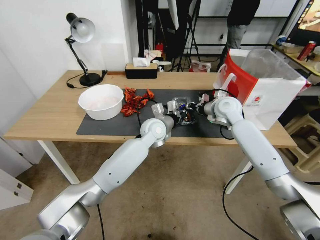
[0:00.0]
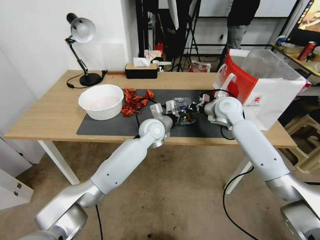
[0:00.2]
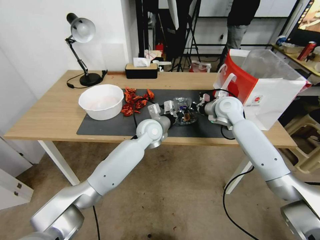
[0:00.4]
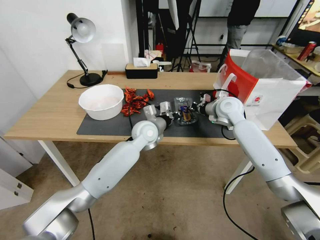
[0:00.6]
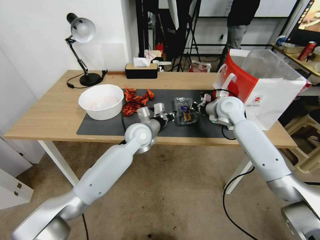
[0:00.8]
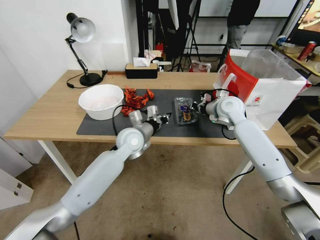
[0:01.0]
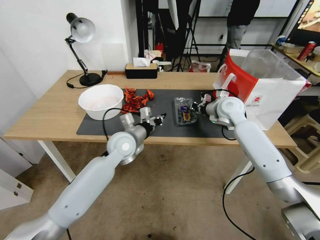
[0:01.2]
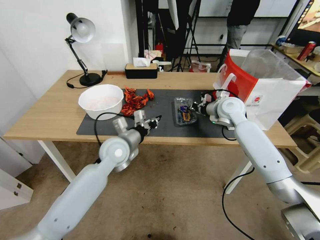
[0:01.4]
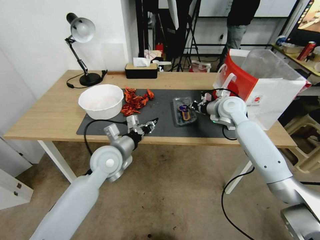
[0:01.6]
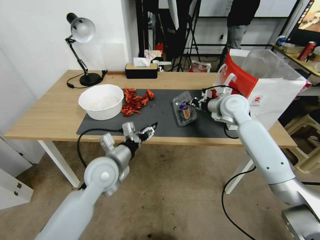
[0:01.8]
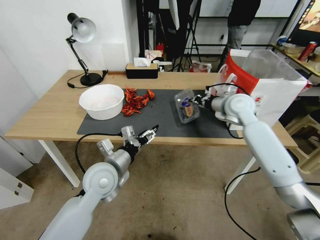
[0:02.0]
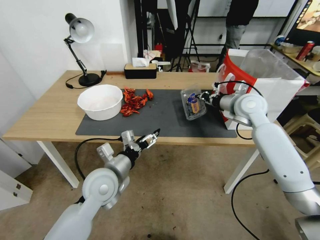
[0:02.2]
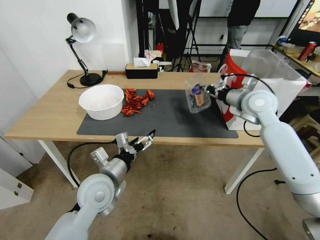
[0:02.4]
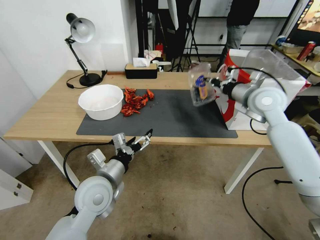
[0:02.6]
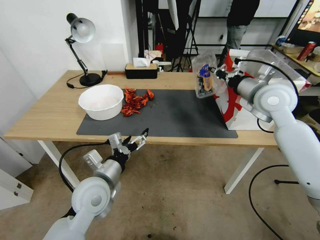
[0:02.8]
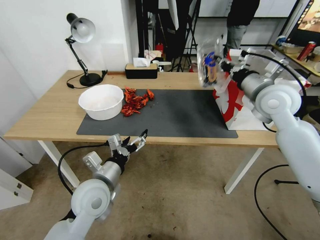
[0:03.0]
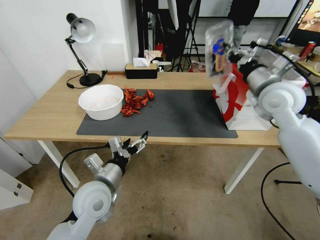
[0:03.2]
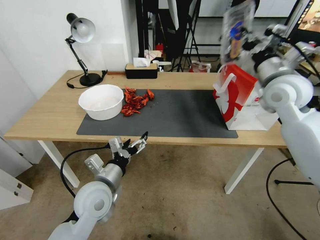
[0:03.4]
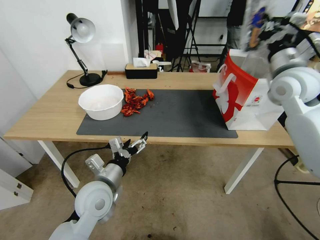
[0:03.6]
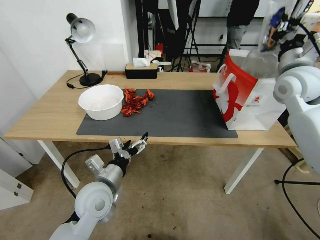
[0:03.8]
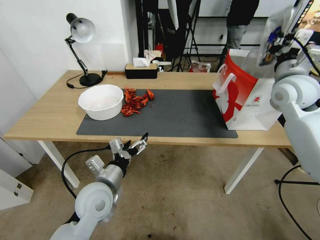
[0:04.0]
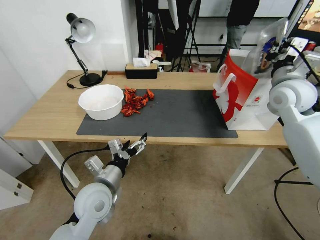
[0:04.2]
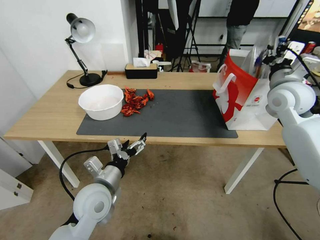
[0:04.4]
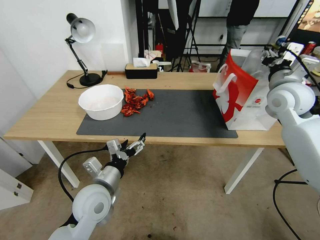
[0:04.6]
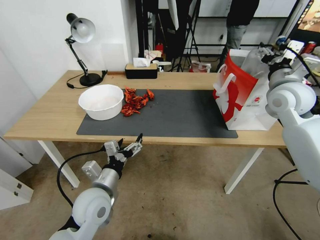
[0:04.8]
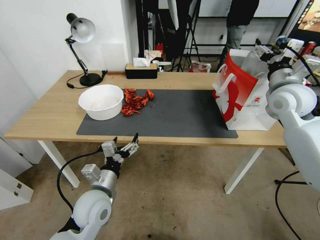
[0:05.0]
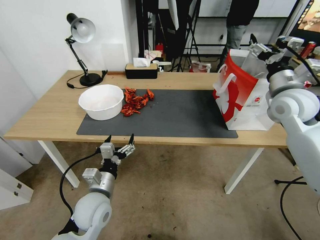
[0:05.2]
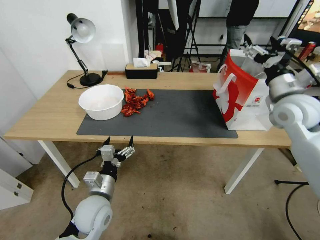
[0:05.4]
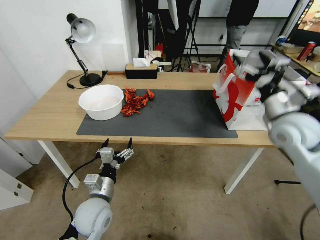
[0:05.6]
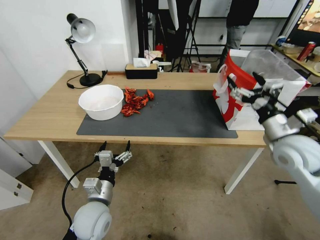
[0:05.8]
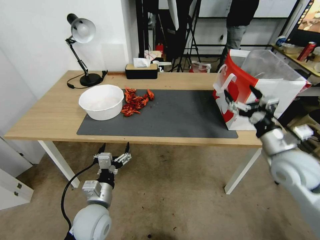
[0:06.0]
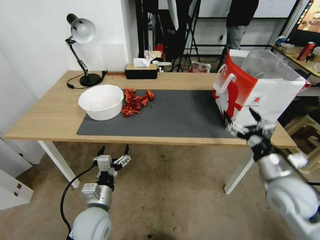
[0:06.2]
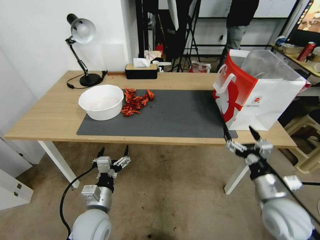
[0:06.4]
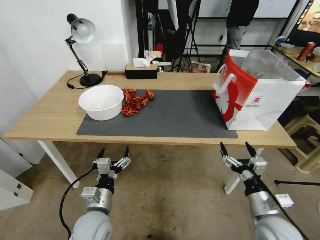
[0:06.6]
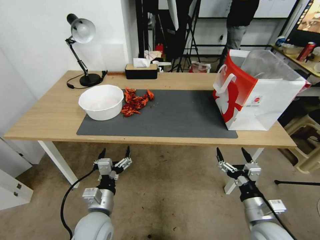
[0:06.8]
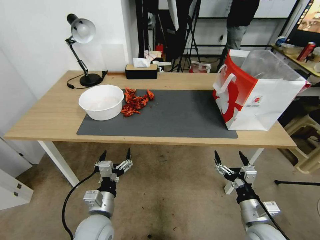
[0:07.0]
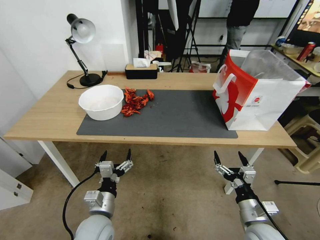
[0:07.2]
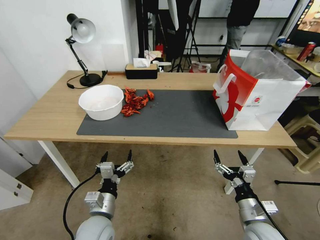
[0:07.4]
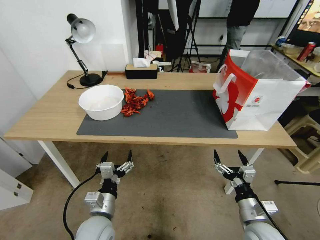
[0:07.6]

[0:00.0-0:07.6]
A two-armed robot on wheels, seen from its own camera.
Task of the whole recording: Close the takeout container lid, then place the container into the takeout bag.
0:00.0 to 0:01.6: The left gripper goes approximately 20 cm to the left and backward.
0:01.6 to 0:03.0: The right gripper travels upward and backward by about 15 cm; the left gripper moves backward, some 10 cm, and opens up.
0:03.0 to 0:04.6: The right gripper opens its fingers.
0:04.6 to 0:06.0: The right gripper goes some 20 cm backward and downward, and opens up. The left gripper heads downward, covering approximately 5 cm.
0:06.0 to 0:07.6: The right gripper is displaced downward and backward by about 20 cm.
